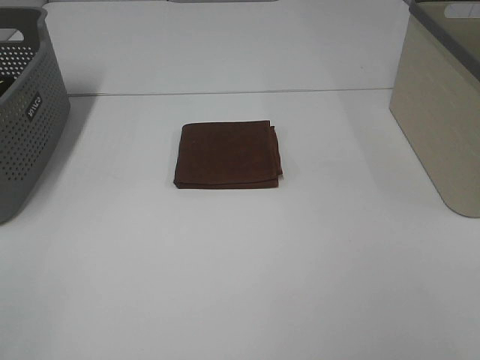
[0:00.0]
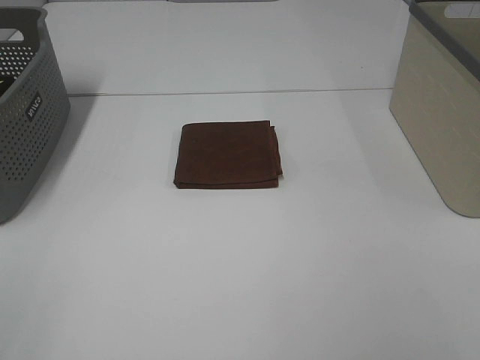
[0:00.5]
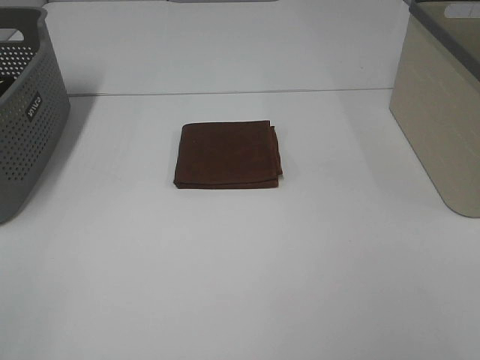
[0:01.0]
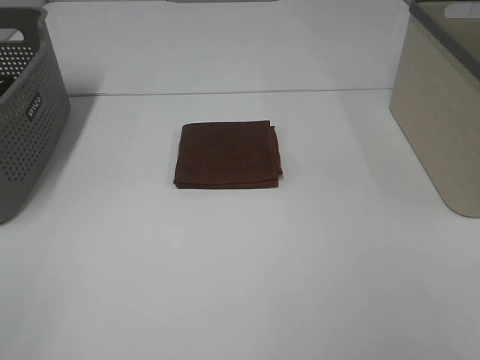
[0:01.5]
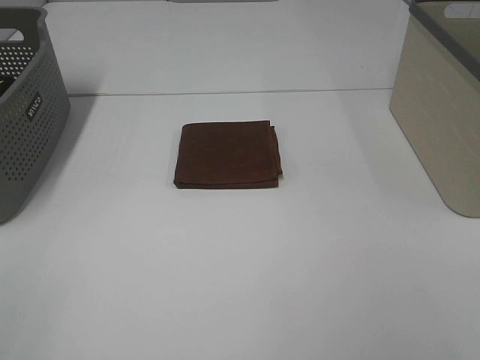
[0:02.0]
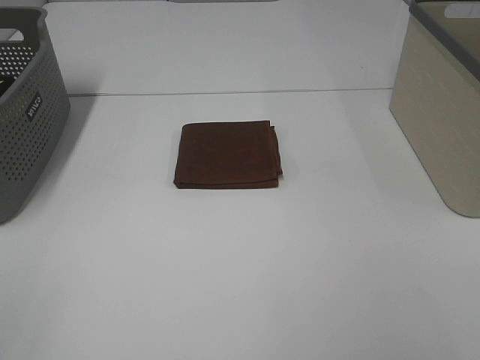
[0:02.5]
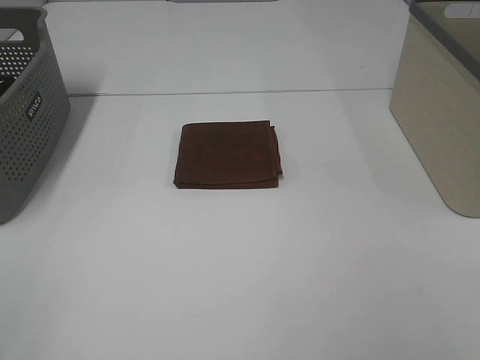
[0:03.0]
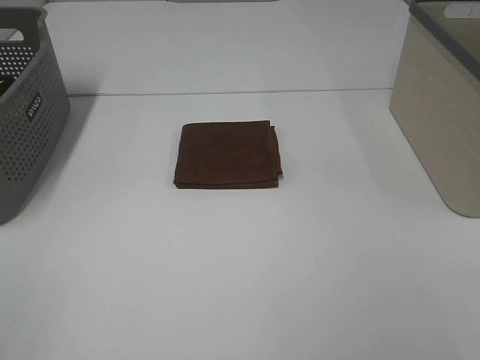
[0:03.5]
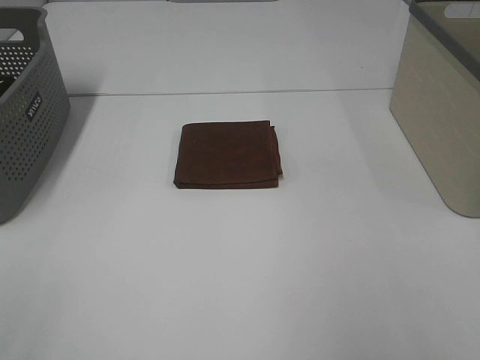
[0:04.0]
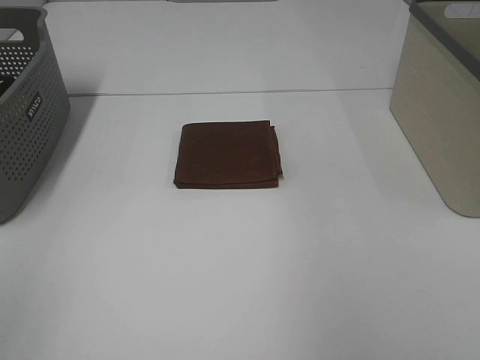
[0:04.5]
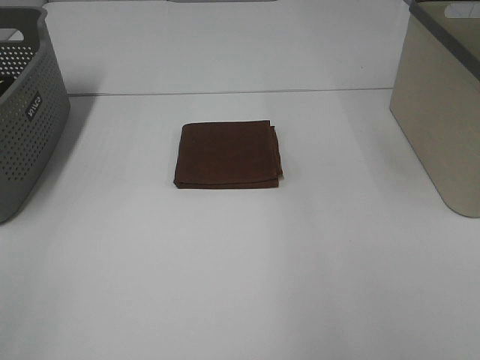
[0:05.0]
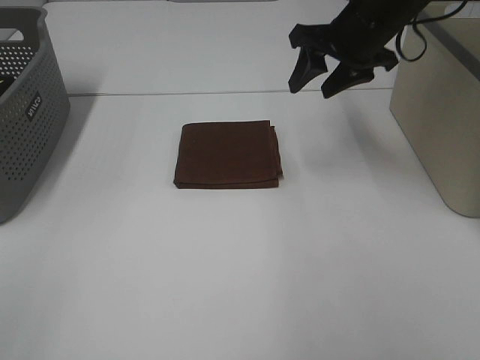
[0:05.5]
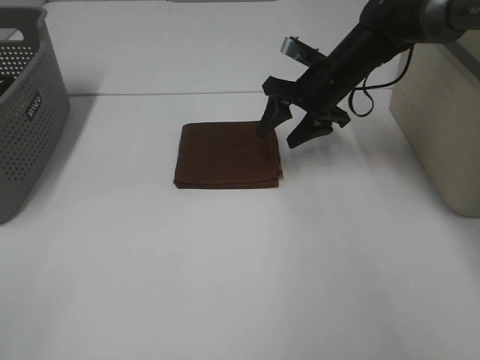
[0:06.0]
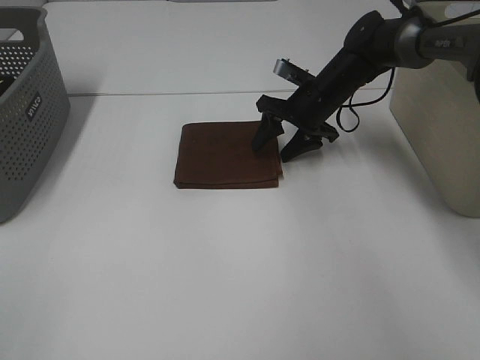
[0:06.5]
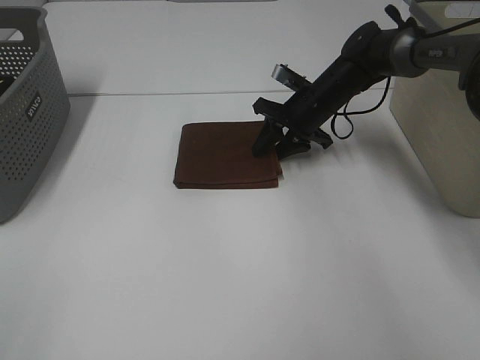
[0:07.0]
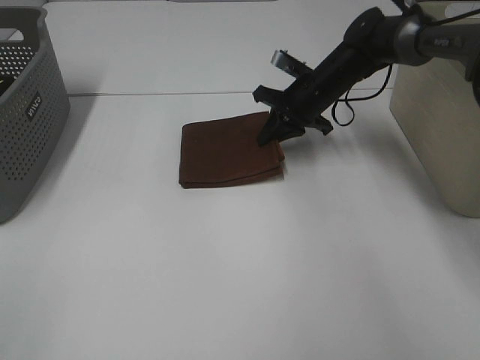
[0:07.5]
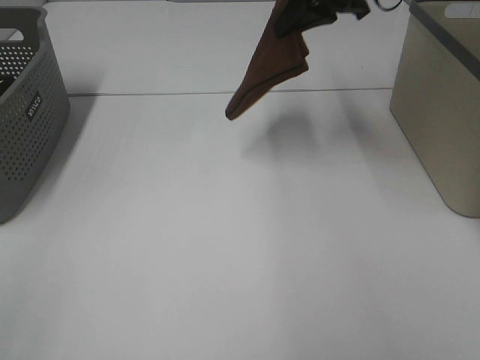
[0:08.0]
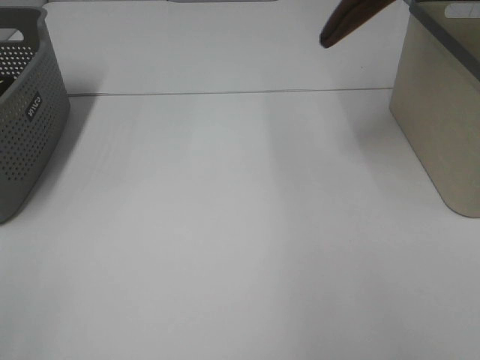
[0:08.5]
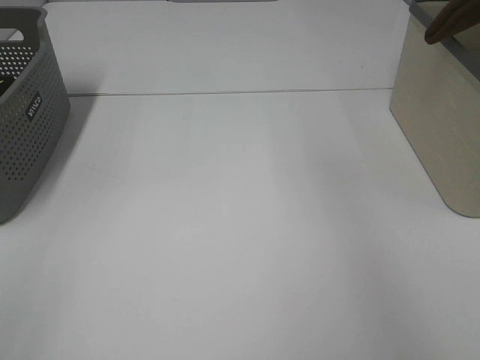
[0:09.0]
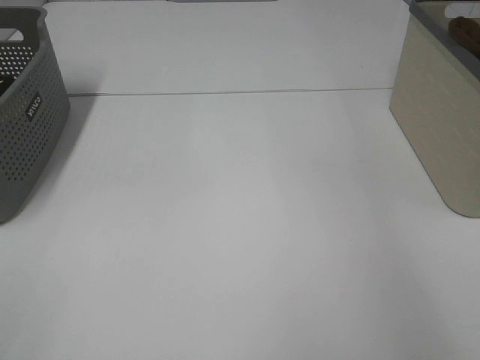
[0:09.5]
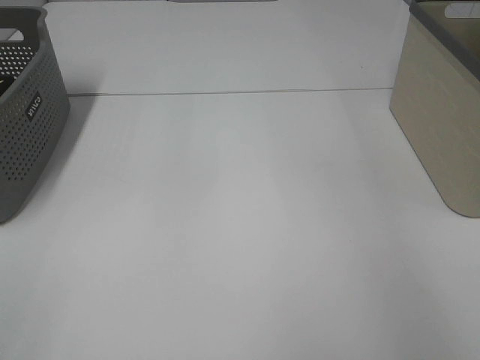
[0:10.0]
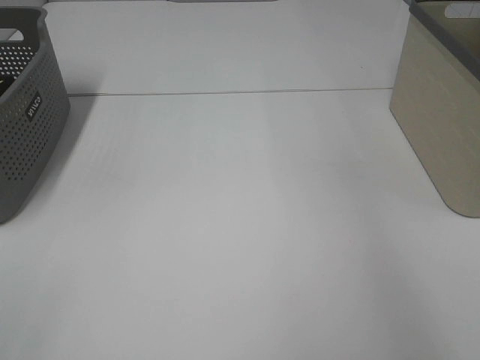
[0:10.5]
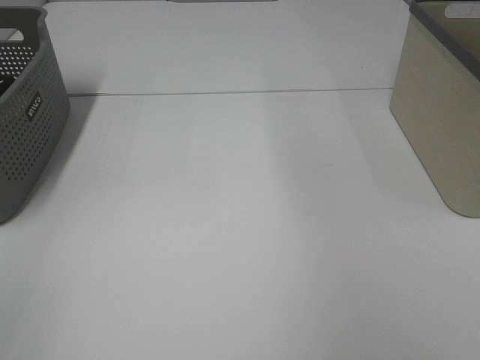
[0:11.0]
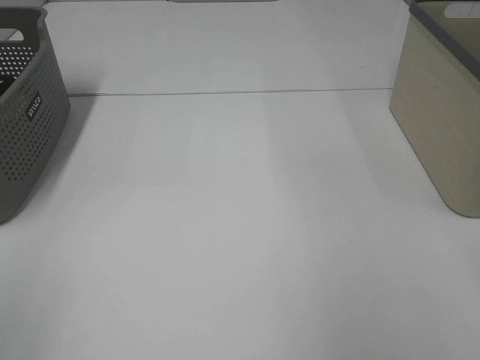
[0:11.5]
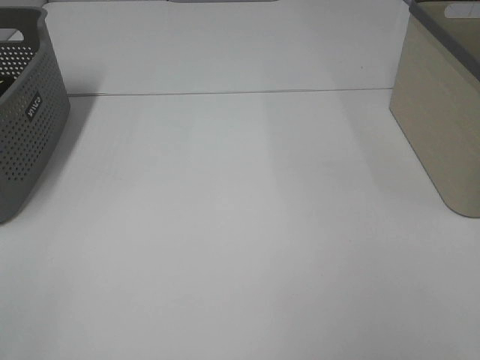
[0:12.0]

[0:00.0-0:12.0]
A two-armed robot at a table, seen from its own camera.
Step, 0:00.0 to 0:07.0: Right hand: grab the folded brown towel.
Step, 0:07.5 to 0:10.0: Right hand: place the brown towel in right basket.
0:00.0 to 0:02.0: Both grippers stay put.
0:04.0 to 0:06.0: The right gripper moves forward, downward and to the left, approximately 40 cm.
0:06.0 to 0:08.0: The right gripper moves upward, some 15 cm, and closes its fingers.
0:08.0 to 0:10.0: The right gripper goes about 25 cm to the right, and opens its fingers.

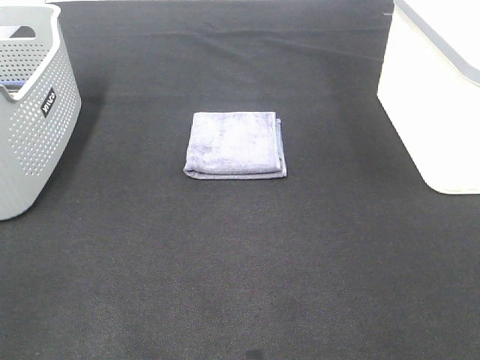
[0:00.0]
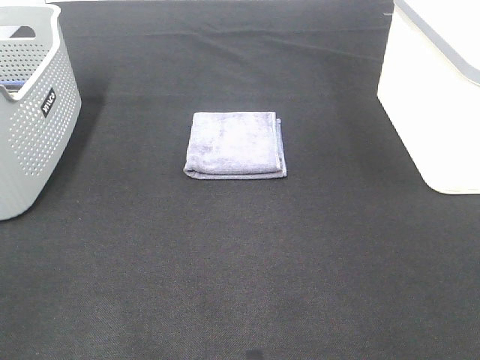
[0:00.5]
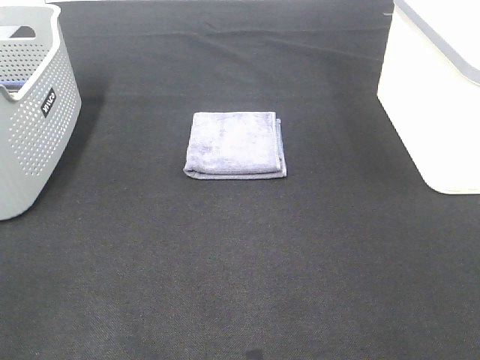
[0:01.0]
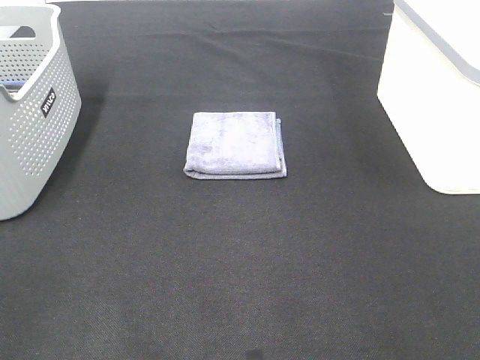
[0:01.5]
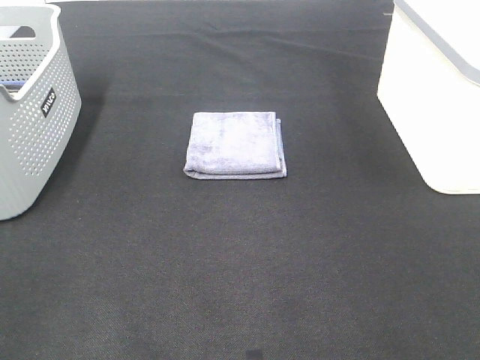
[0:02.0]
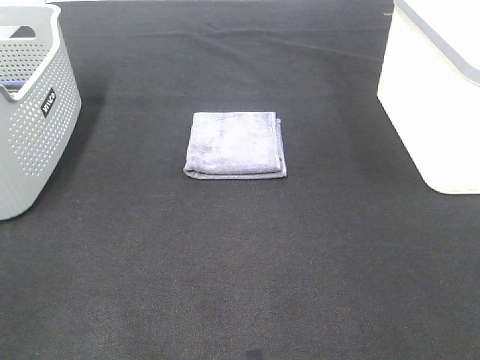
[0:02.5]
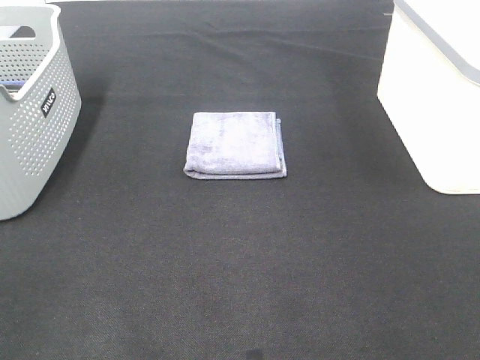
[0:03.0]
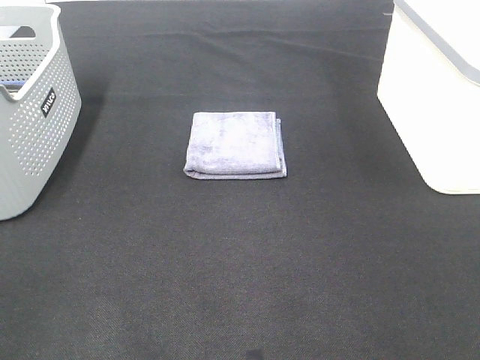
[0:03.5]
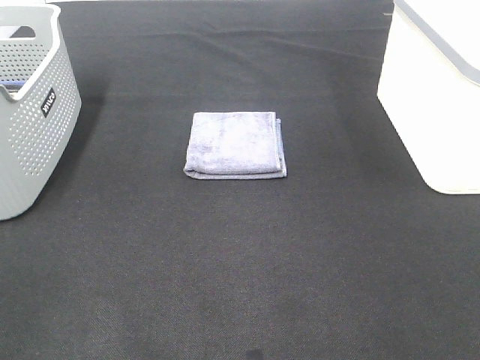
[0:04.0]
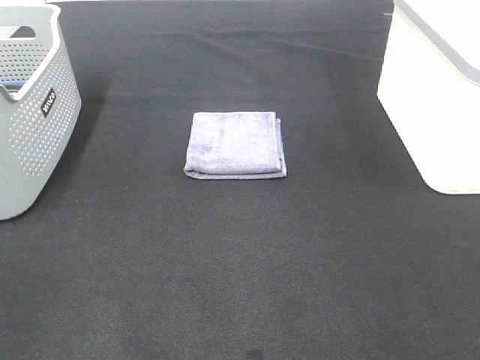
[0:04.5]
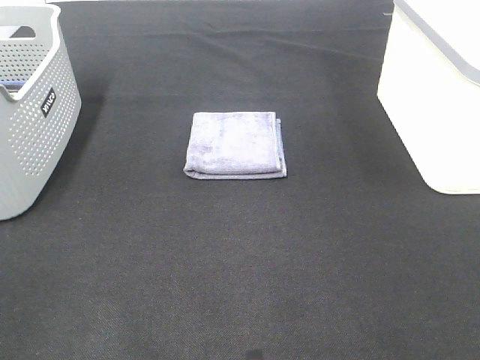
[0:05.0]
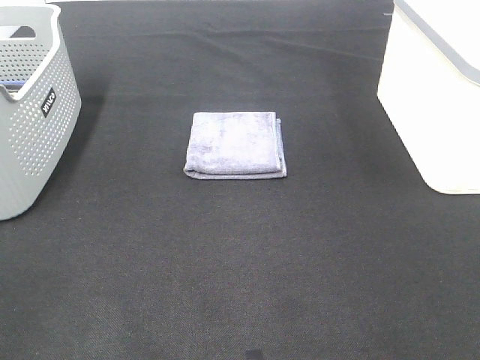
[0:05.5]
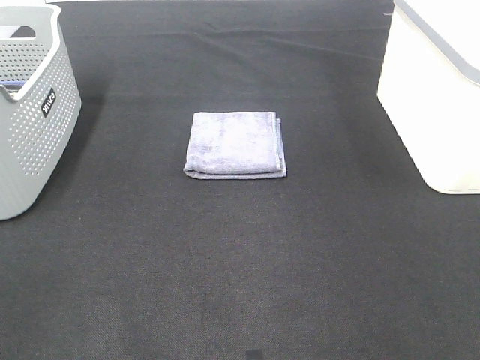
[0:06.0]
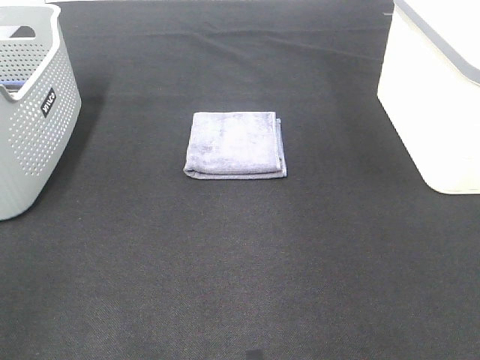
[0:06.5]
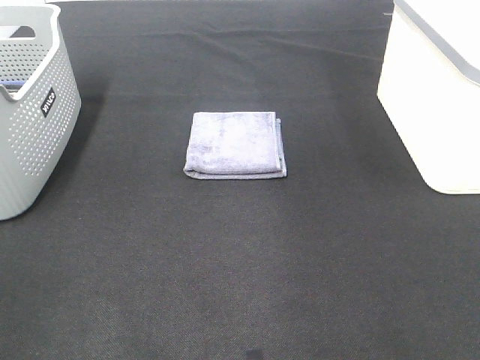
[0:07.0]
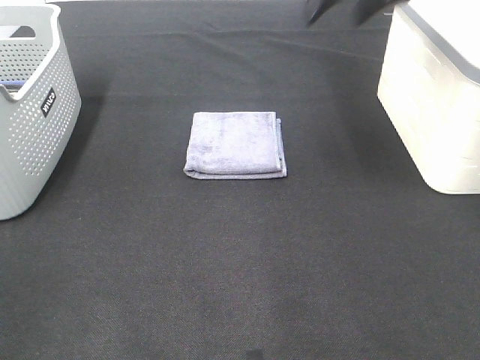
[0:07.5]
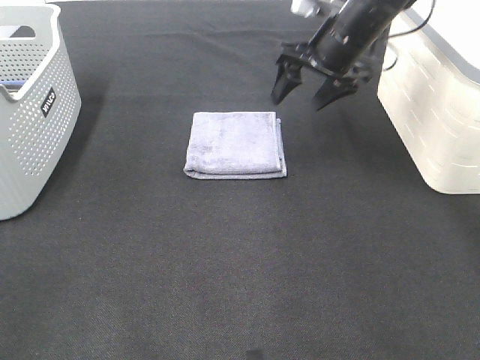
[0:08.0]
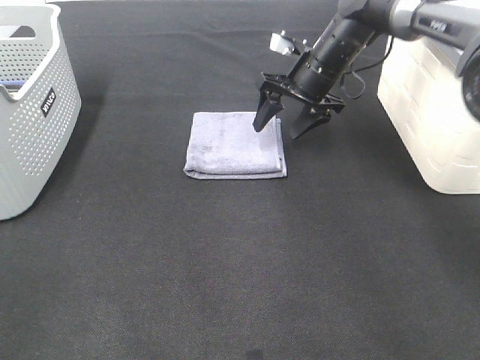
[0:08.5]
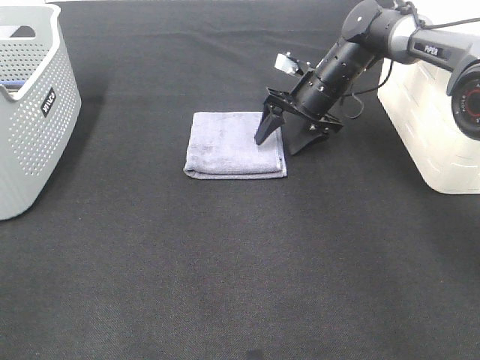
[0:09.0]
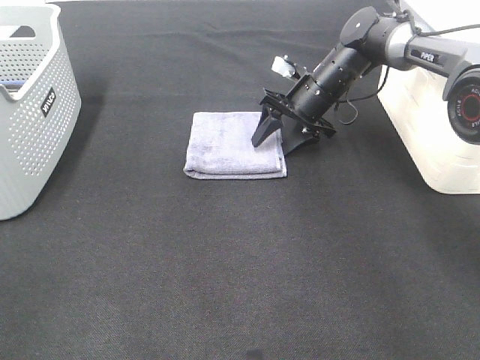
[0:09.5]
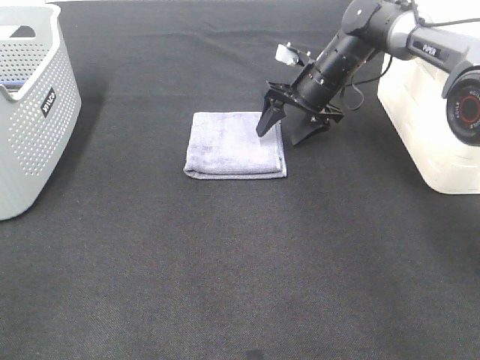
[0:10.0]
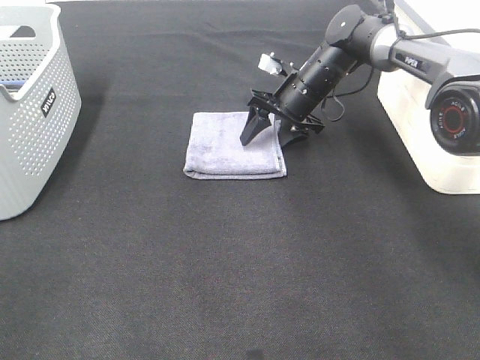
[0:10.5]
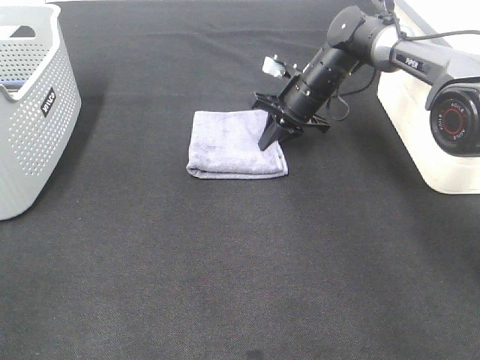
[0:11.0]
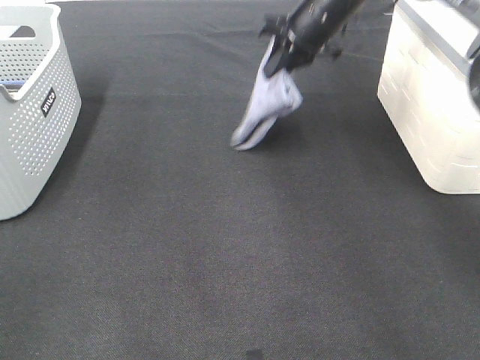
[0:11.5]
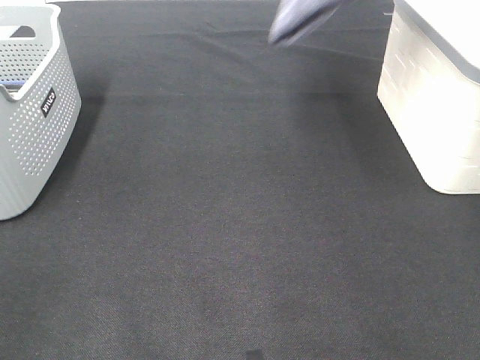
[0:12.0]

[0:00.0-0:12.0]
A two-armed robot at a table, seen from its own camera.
Step, 0:00.0 to 0:11.0: Right hand: grab the folded grey towel.
0:00.0 to 0:04.0: Both grippers stay about where they are.
0:06.0 to 0:08.0: The right gripper is displaced forward, to the left and downward by roughly 40 cm.
0:08.0 to 0:10.0: The right gripper shifts approximately 10 cm downward.
0:10.0 to 0:12.0: The right gripper goes some 30 cm upward, and closes.

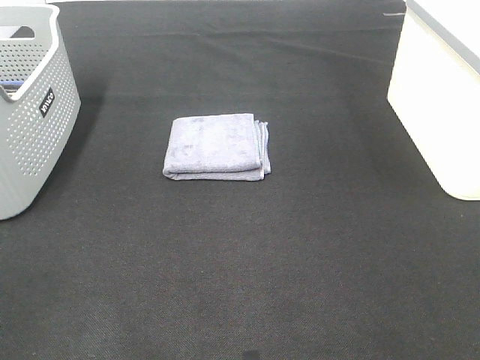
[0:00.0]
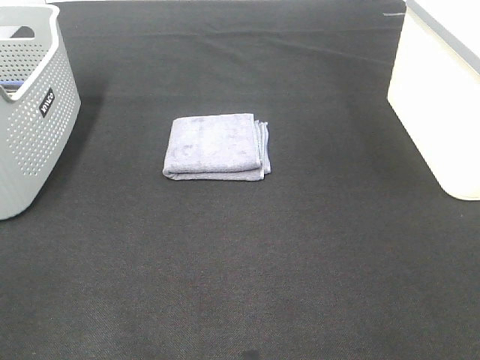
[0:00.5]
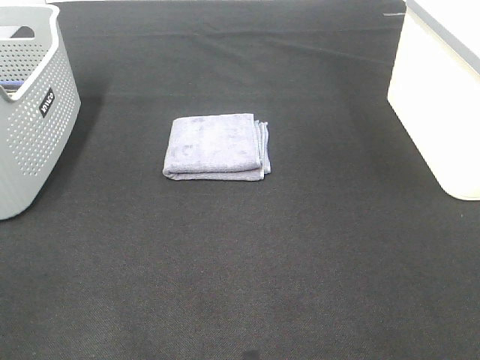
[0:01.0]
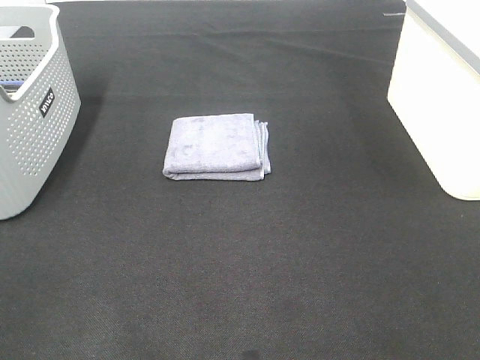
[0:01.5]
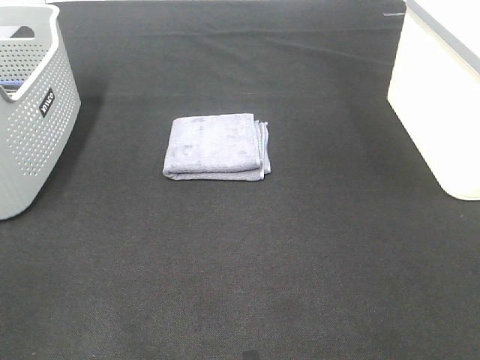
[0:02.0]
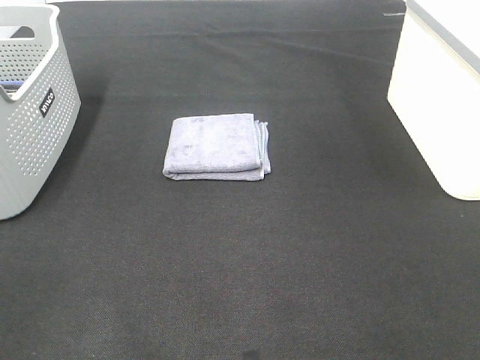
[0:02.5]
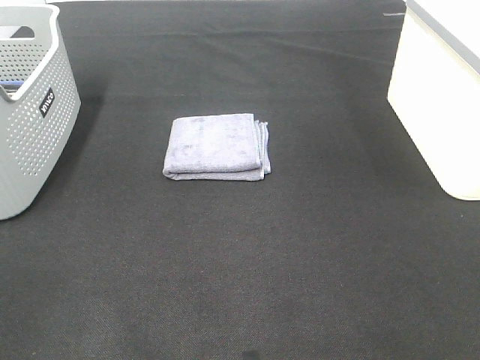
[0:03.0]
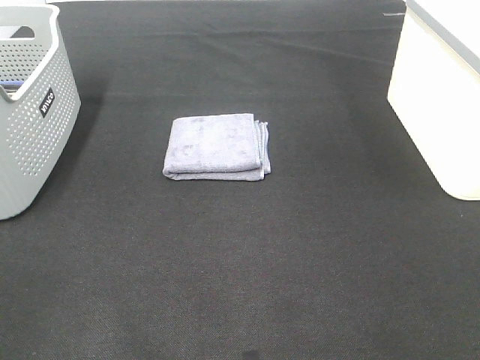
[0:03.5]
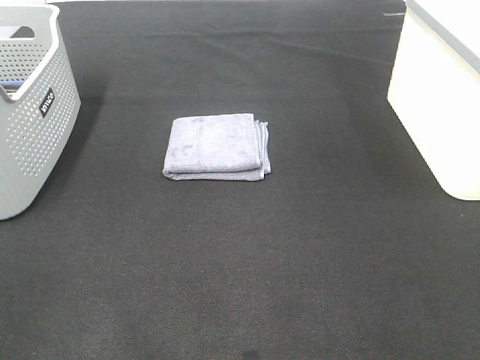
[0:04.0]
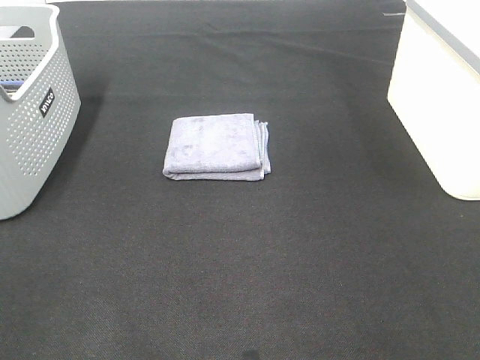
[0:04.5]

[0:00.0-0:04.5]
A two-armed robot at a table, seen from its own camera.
0:00.0 to 0:02.0: The two grippers keep their place.
